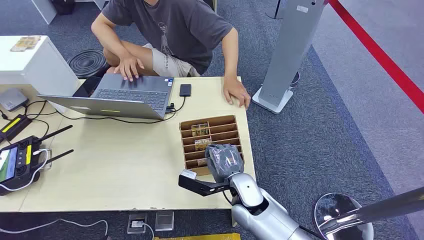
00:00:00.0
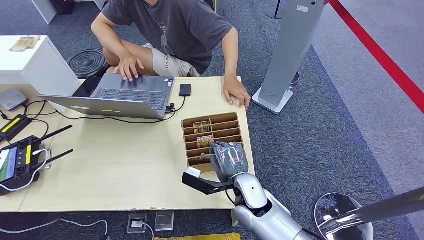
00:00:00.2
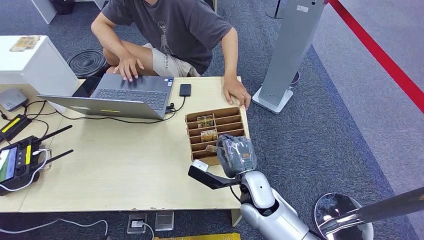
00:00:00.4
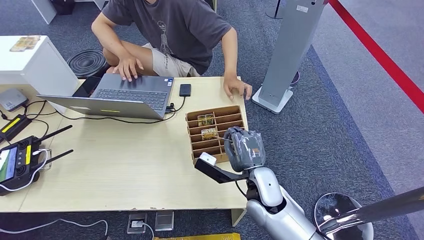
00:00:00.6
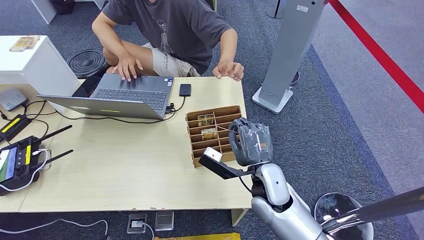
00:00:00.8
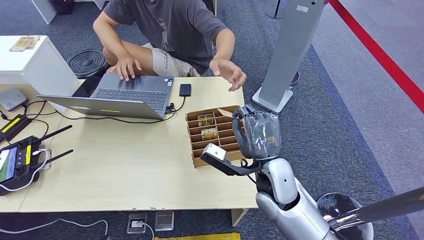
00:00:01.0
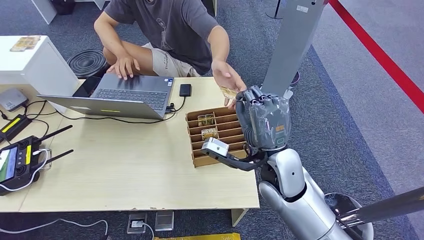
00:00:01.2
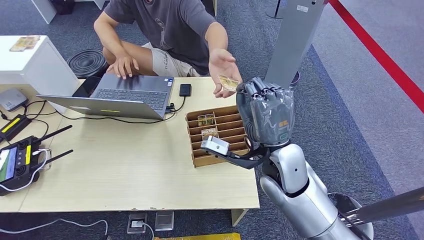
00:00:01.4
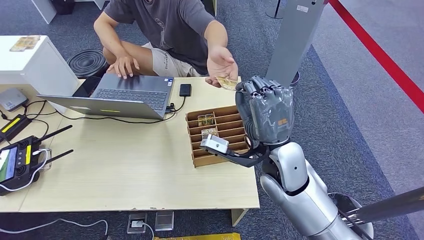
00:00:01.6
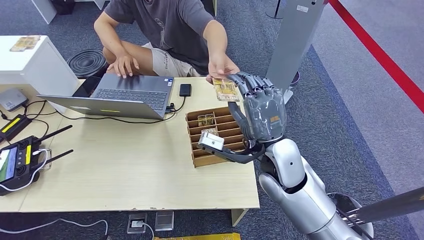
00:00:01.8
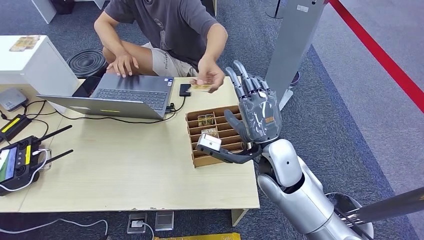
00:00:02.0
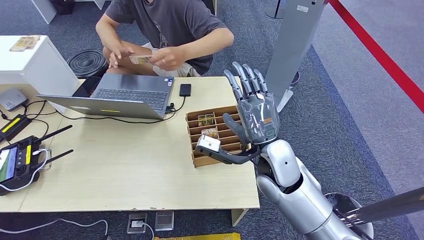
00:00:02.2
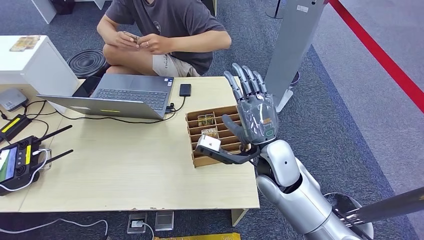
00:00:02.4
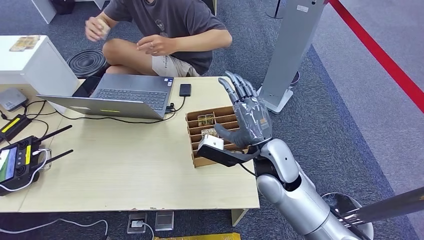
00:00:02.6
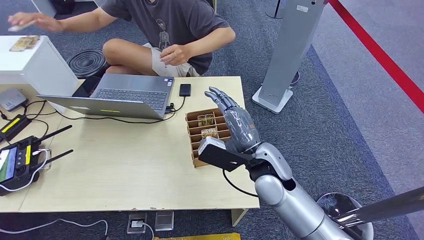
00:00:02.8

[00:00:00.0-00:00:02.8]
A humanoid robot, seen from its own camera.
Step, 00:00:00.0 to 00:00:00.8: Pick up the room card from the card holder.
Step, 00:00:01.0 to 00:00:02.8: Hand the room card to the target.

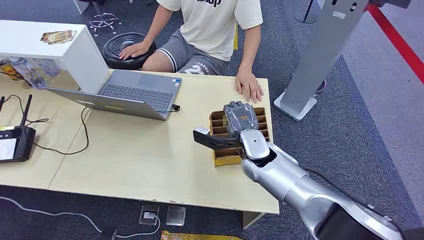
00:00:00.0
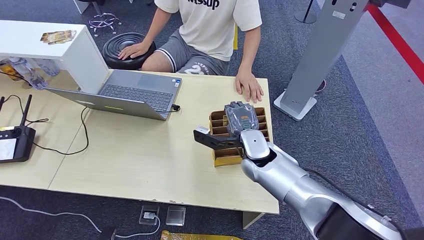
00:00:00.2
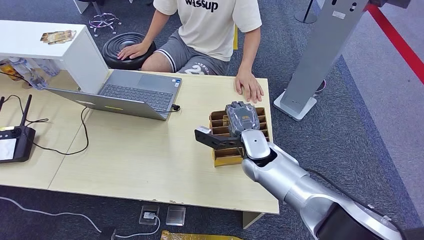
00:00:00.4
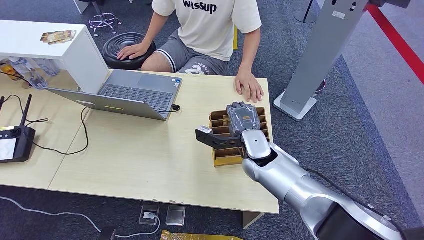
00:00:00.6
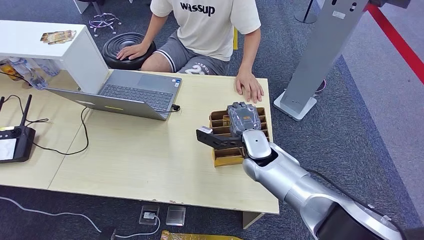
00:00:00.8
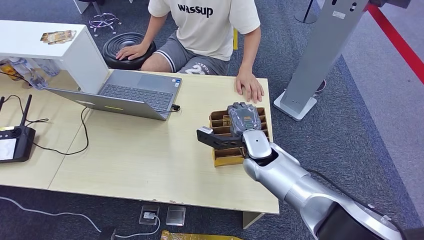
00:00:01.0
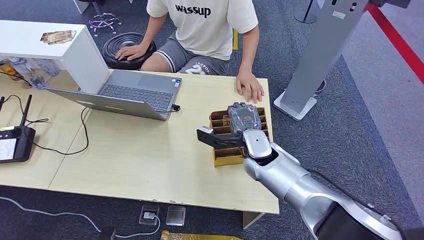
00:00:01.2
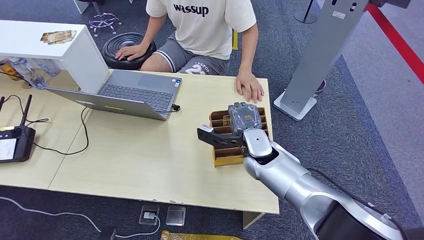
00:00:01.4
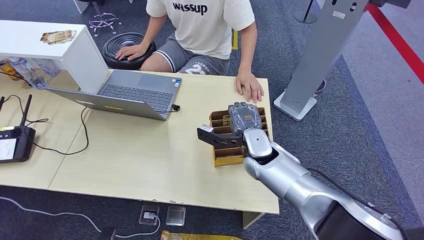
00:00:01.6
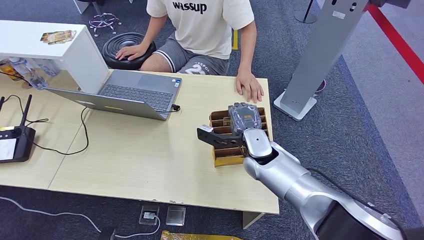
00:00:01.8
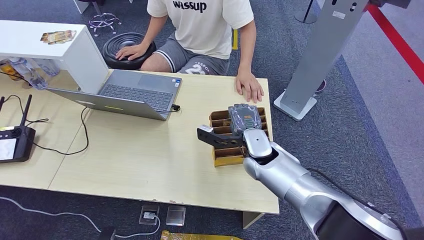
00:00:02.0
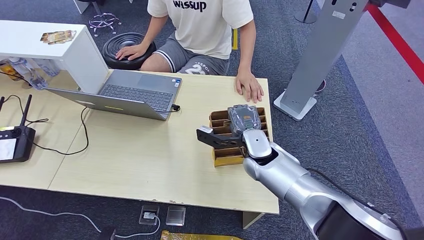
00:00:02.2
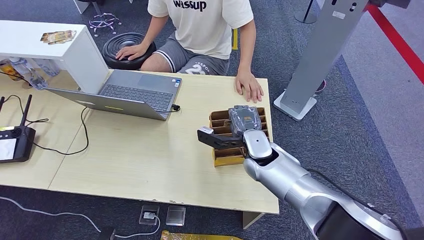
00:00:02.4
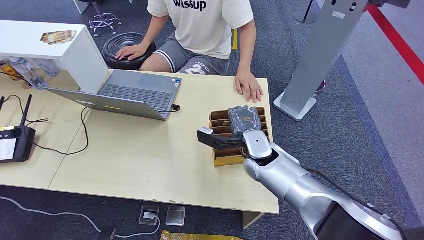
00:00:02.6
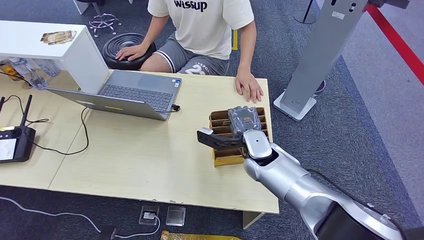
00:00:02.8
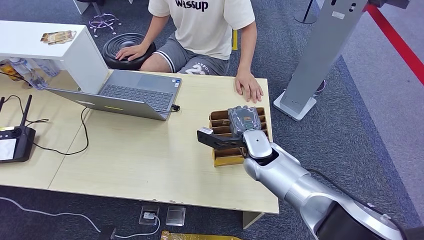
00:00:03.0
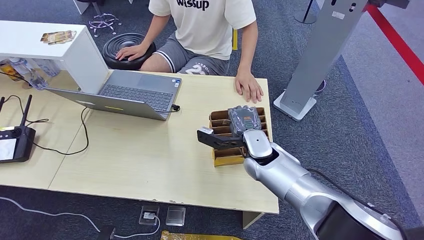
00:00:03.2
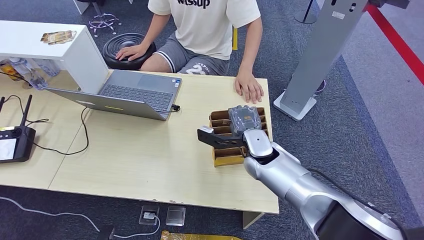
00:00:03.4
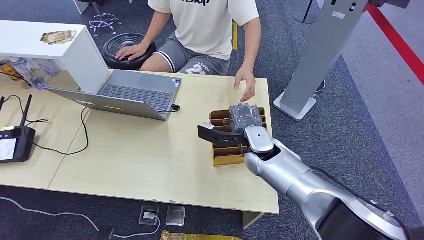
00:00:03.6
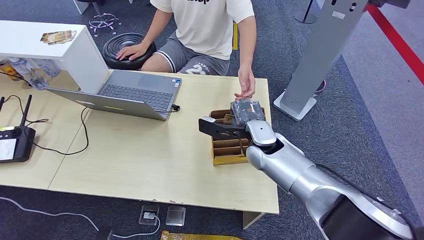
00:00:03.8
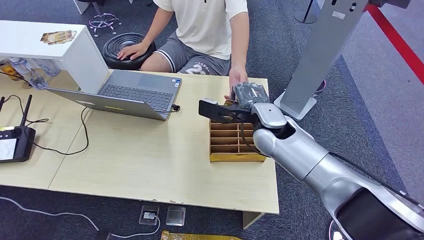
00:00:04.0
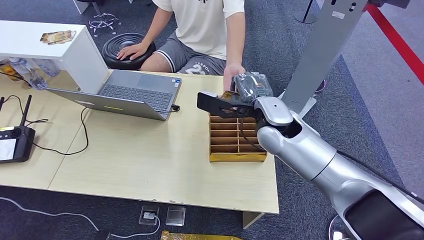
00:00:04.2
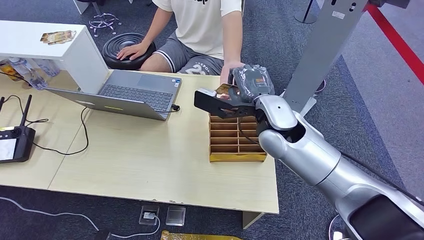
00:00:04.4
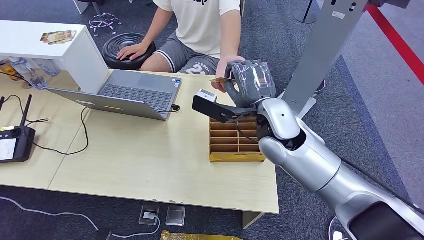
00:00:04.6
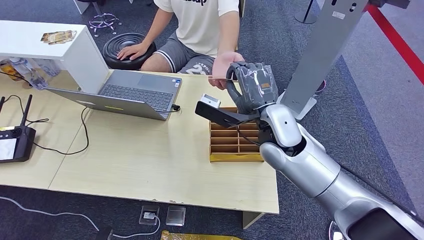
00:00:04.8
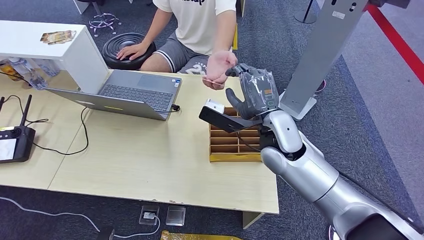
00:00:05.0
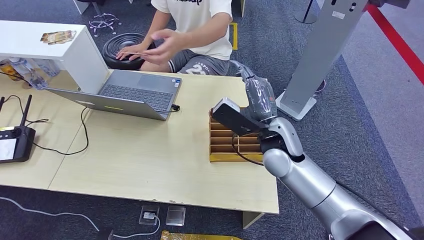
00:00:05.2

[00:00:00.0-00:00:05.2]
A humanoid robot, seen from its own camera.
Step, 00:00:00.0 to 00:00:03.8: Pick up the room card from the card holder.
Step, 00:00:04.2 to 00:00:05.2: Hand the room card to the target.
00:00:01.8 to 00:00:03.4: Both hands stay put.
00:00:03.4 to 00:00:05.2: The right hand travels upward by roughly 10 cm.
